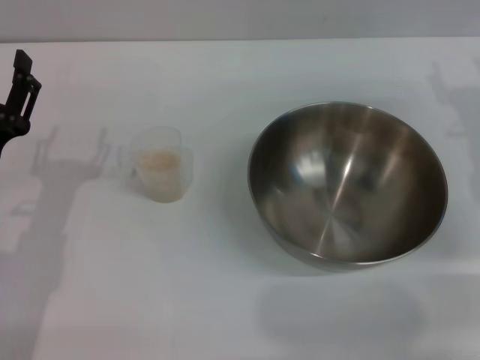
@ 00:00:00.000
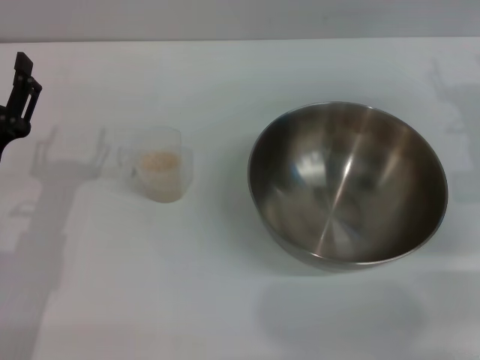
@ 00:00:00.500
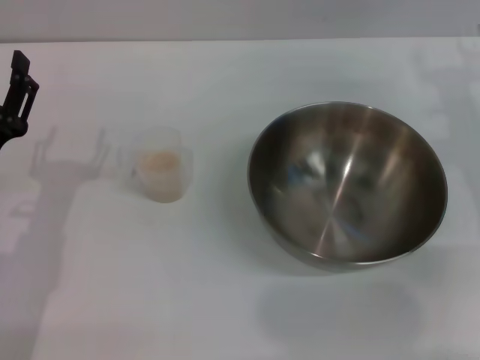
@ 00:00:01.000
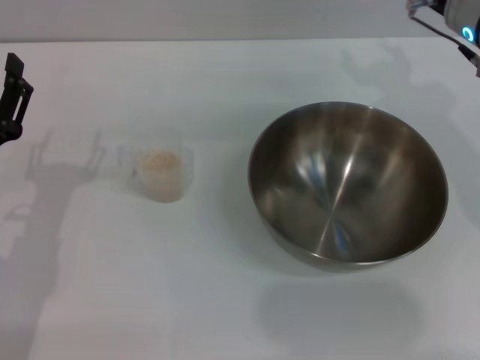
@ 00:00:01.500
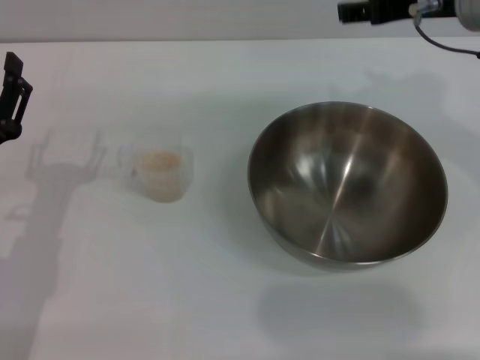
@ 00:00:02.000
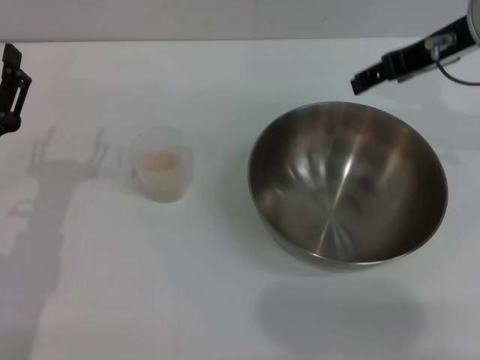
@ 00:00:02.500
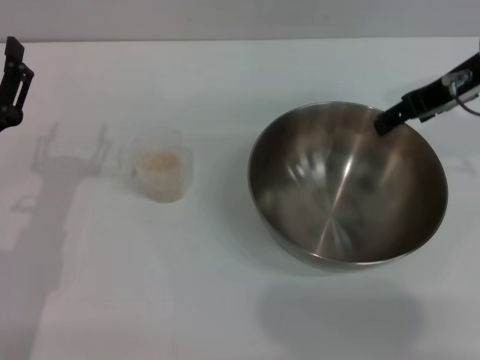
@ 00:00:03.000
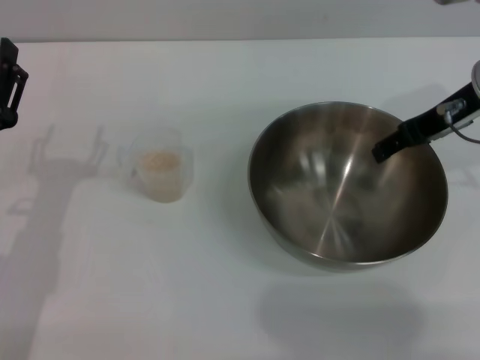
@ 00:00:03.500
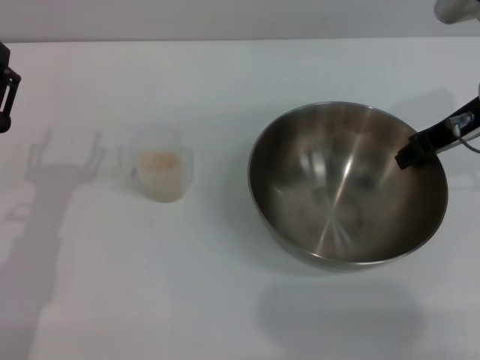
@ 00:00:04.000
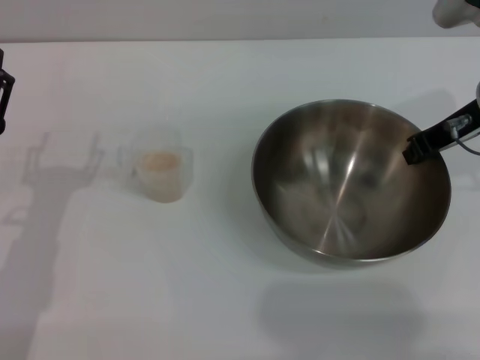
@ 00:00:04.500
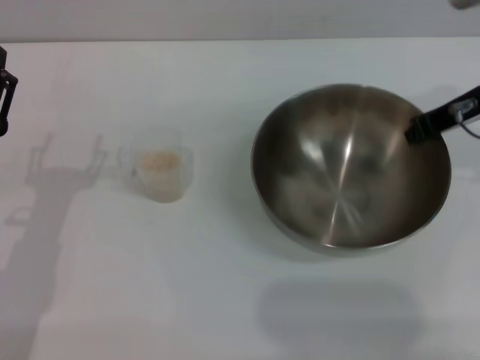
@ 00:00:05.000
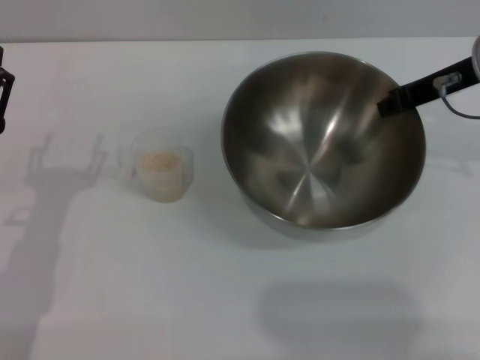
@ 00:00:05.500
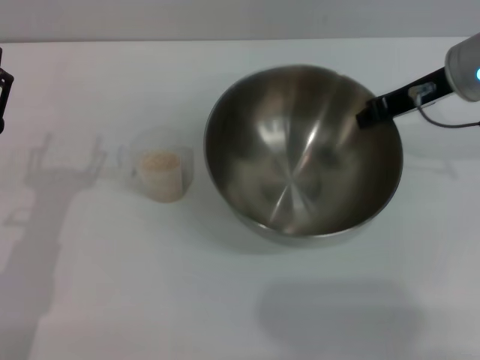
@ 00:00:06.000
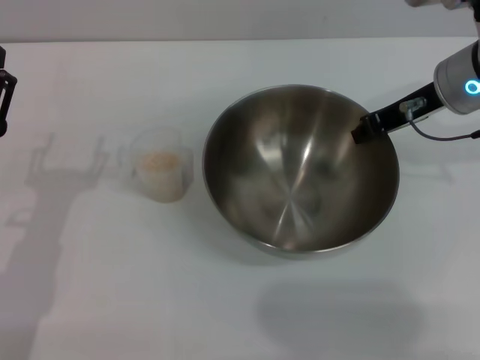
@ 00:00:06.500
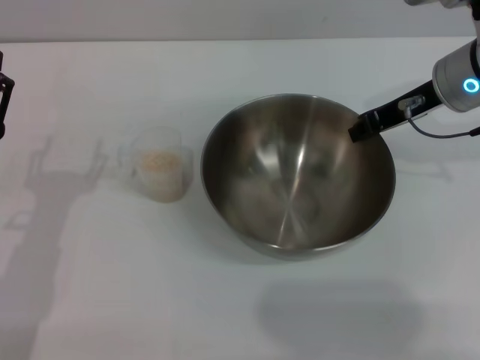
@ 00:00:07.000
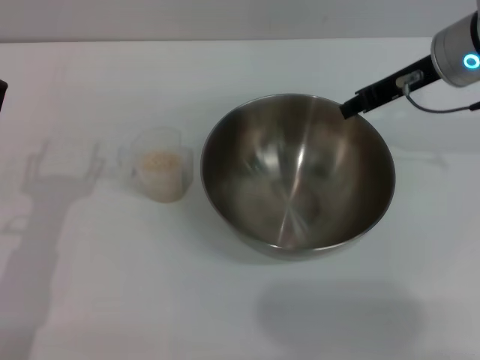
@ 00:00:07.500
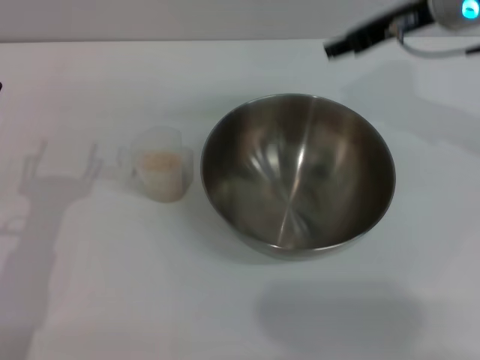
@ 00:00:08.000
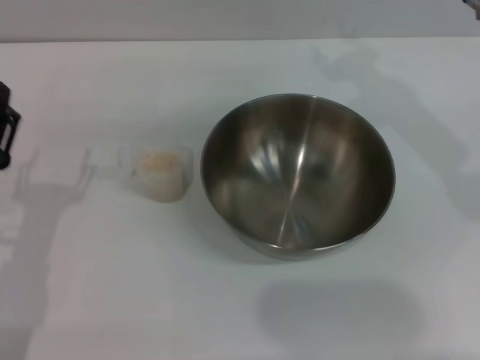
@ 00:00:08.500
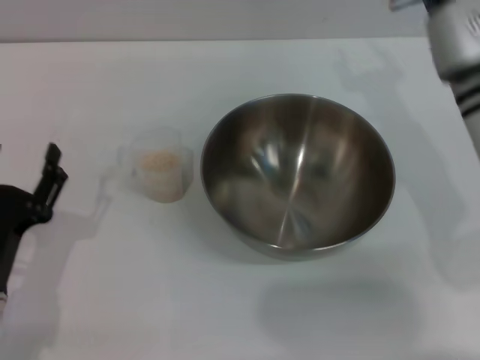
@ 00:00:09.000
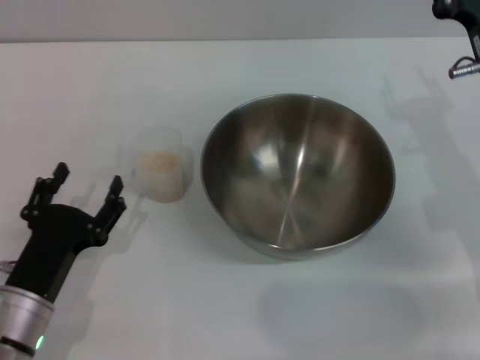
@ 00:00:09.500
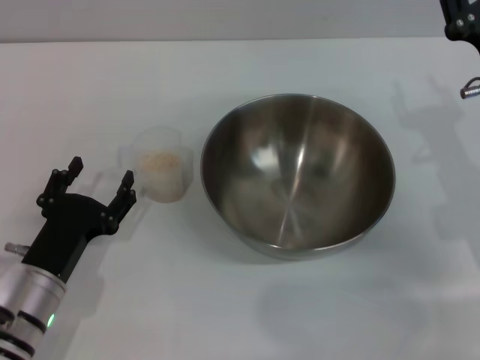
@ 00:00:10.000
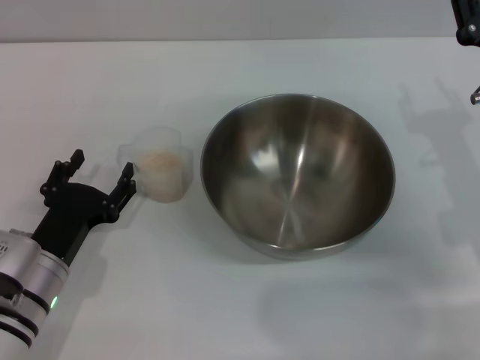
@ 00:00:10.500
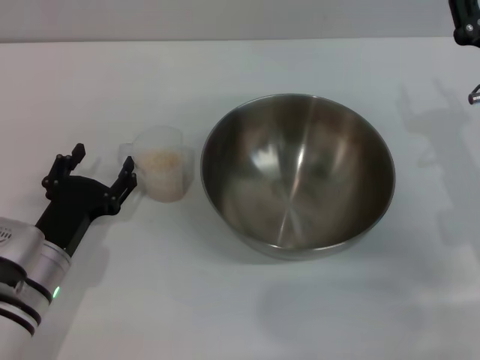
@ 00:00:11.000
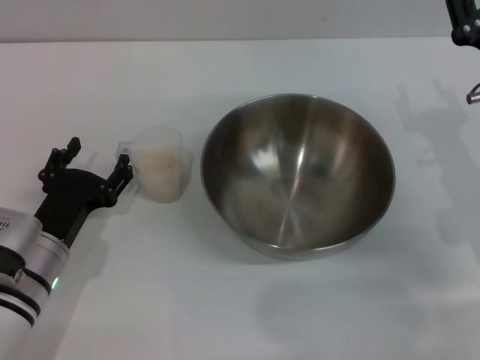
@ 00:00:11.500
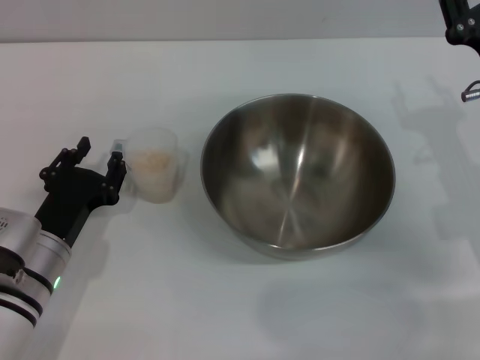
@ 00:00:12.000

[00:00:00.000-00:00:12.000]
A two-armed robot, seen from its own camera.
Task of the whole recording: Place the bowl in the middle of the table with one hand and pour the rice from the grain cup into it with the other hand.
Step, 00:00:00.000 to 00:00:05.000: Pick up the bowl with the right gripper.
Step, 00:00:05.500 to 00:00:07.000: Place the bowl in the center of view with the right gripper.
00:00:00.000 to 00:00:02.000: The right gripper shifts about 15 cm upward and to the left.
00:00:02.000 to 00:00:04.000: The right gripper shifts roughly 5 cm downward, and closes.
00:00:04.000 to 00:00:06.000: The right gripper closes.
00:00:06.000 to 00:00:08.000: The right gripper goes about 5 cm upward, and opens up.
00:00:08.000 to 00:00:10.000: The right gripper travels downward and backward by roughly 15 cm. The left gripper is displaced downward by approximately 5 cm.
00:00:10.000 to 00:00:12.000: The grippers make only small movements.

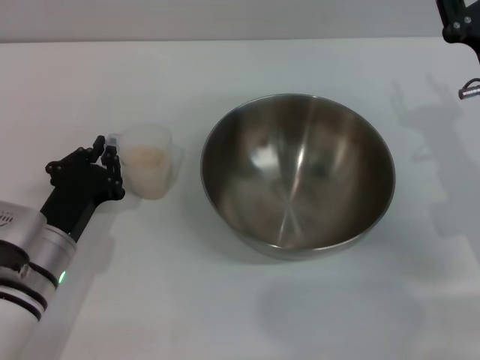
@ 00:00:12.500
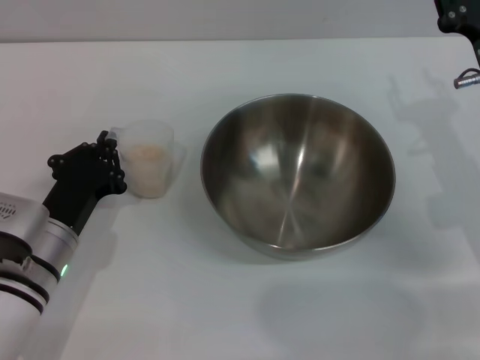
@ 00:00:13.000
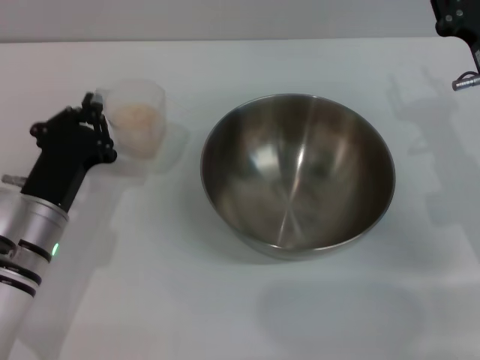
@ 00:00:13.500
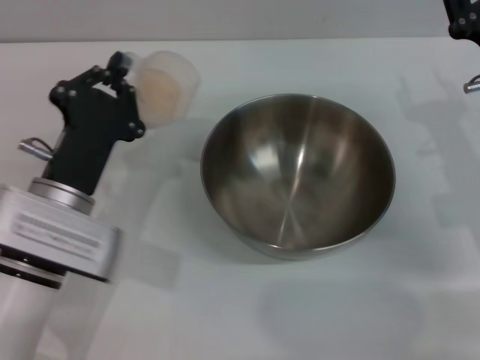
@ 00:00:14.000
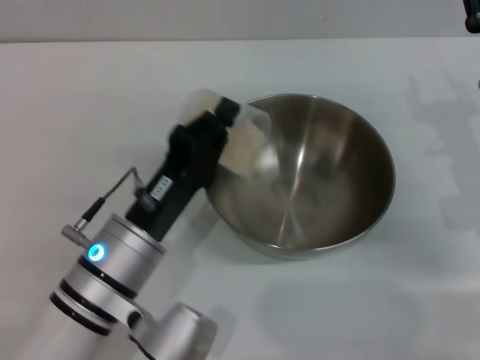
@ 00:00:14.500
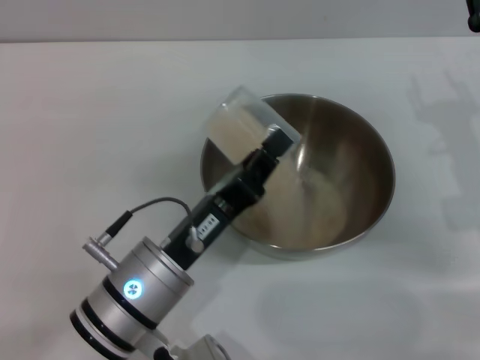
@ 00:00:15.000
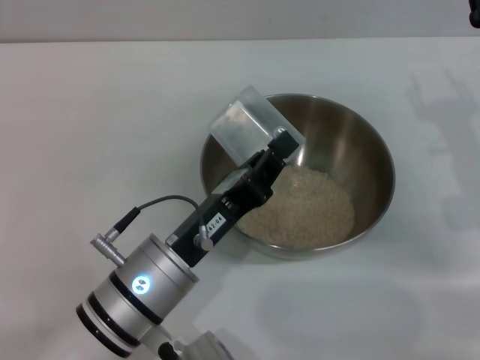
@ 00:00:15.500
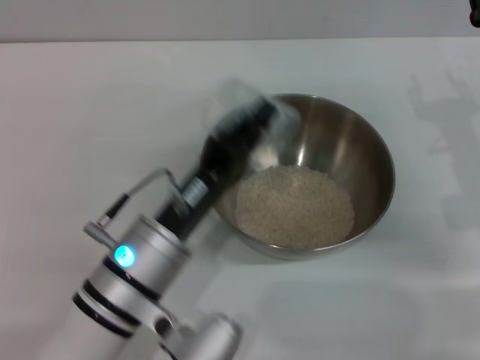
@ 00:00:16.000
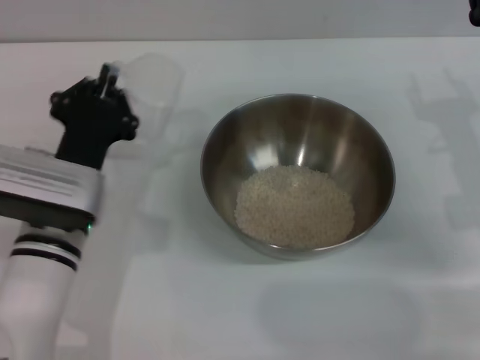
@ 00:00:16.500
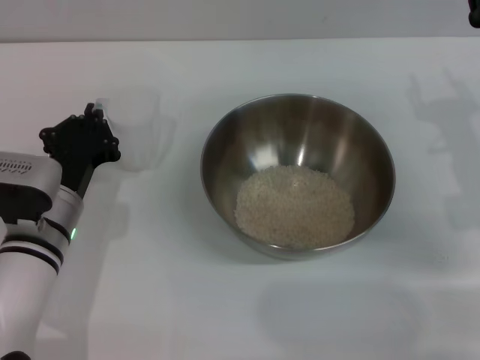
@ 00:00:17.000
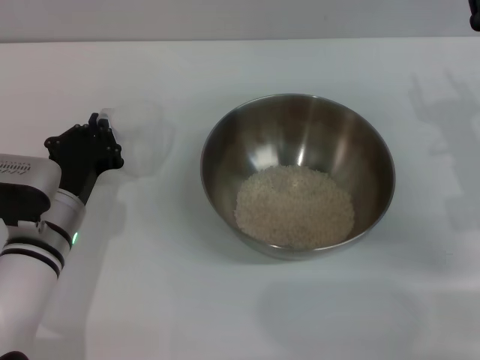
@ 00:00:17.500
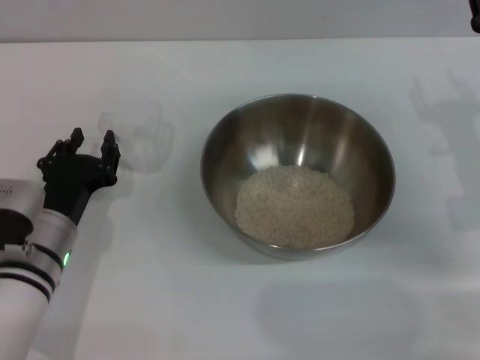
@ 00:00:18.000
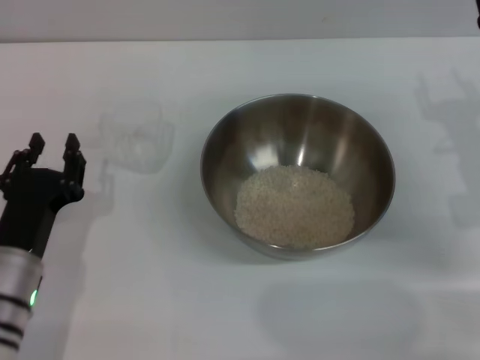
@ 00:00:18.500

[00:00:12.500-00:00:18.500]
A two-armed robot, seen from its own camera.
Task of the whole recording: Place the bowl in the middle of the table with one hand and pour the rice from the grain cup into it with the other hand.
Step, 00:00:13.500 to 00:00:15.500: Pour the rice from the cup into the bowl with the left gripper.
Step, 00:00:16.000 to 00:00:18.000: Place the cup on the table with the left gripper.
00:00:12.500 to 00:00:14.500: The left gripper is displaced to the right by some 10 cm.
00:00:14.500 to 00:00:16.500: The left gripper moves some 5 cm.
00:00:16.500 to 00:00:18.500: The left gripper heads backward and to the left, covering approximately 10 cm, and opens.
